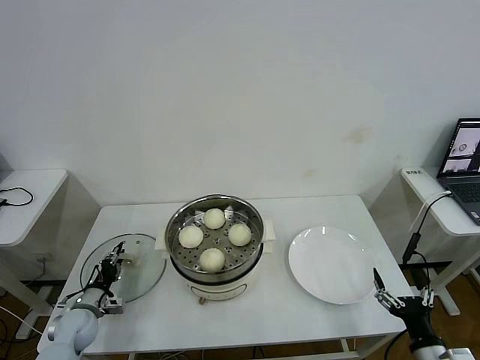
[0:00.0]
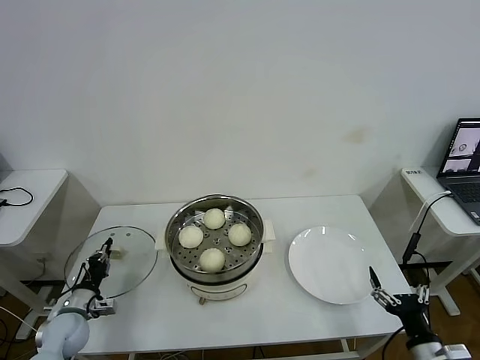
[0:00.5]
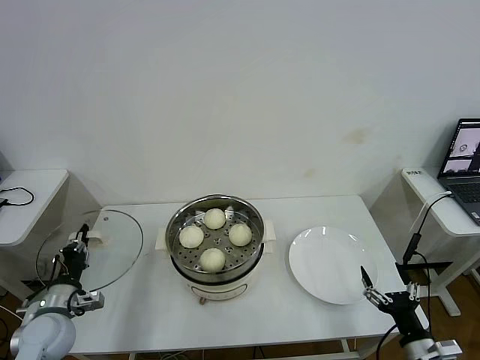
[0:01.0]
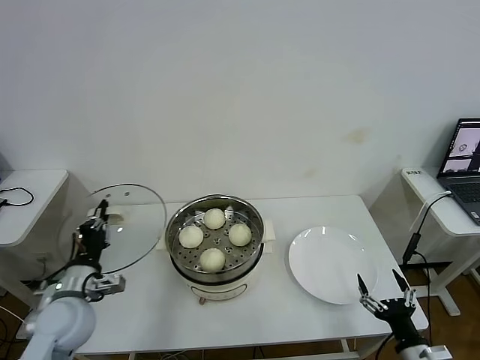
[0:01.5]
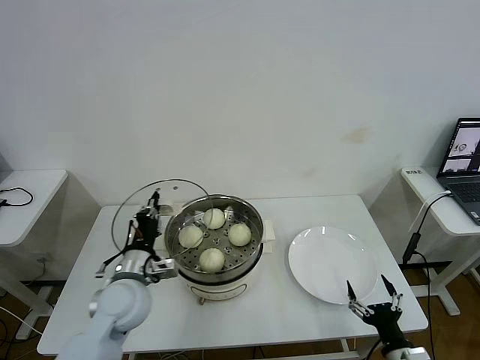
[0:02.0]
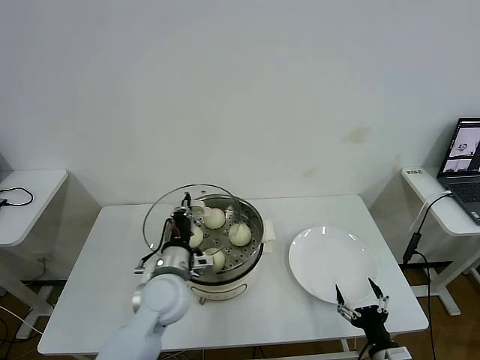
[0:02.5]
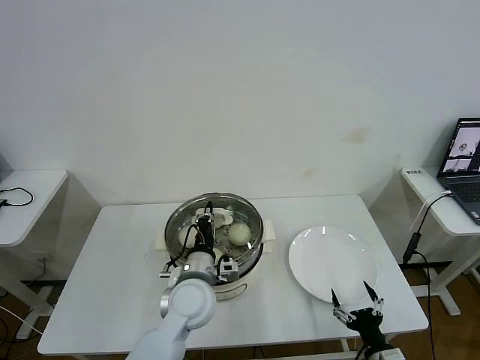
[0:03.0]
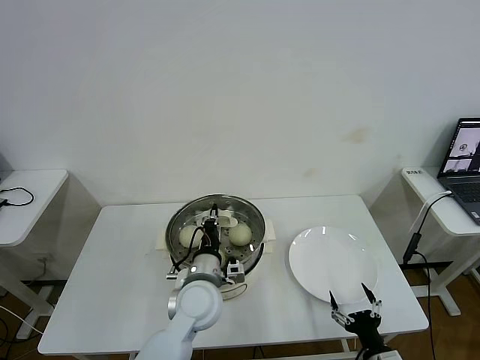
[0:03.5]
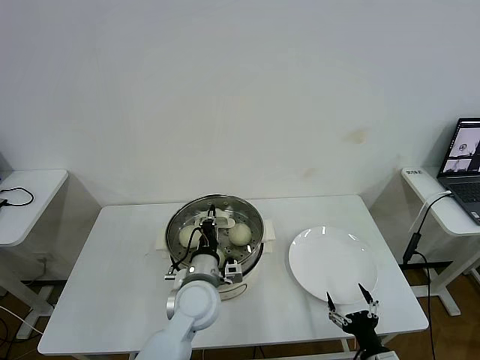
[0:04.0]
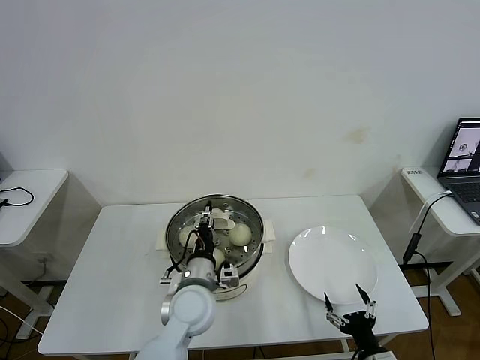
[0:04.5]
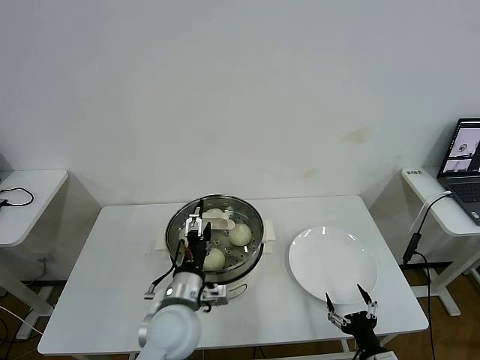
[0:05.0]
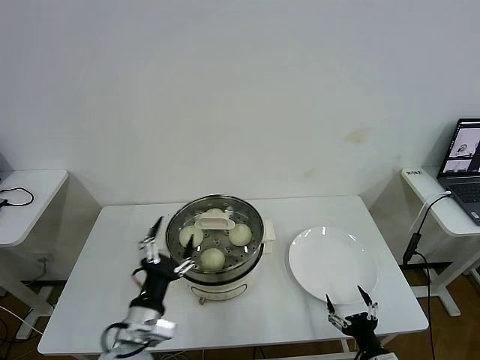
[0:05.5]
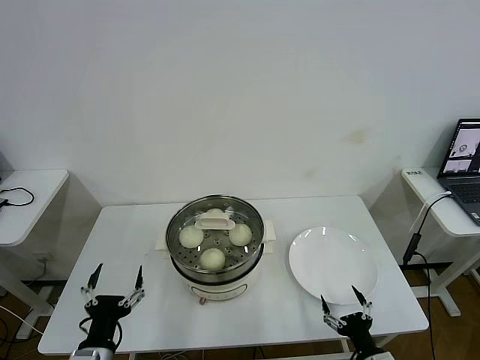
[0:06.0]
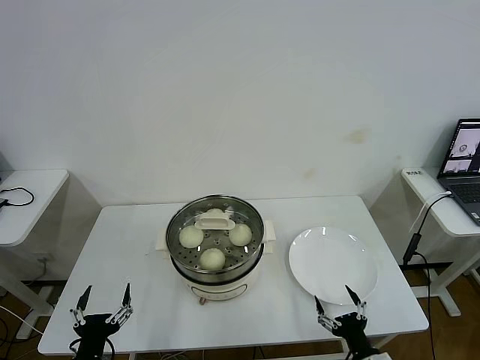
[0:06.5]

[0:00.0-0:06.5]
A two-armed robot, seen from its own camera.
Task of the whole recording: take steamed baozi put them in steamer then cover it.
Step, 0:00.5 to 0:04.5: Place the pot lid on the steamer with left gripper.
0:00.0 to 0:02.0: The left gripper goes some 25 cm to the right and upward, and closes up.
0:02.0 to 0:04.5: The left gripper goes roughly 15 cm to the right, and opens.
0:04.5 to 0:06.5: The left gripper moves to the left and backward, some 30 cm, and opens its fingers.
